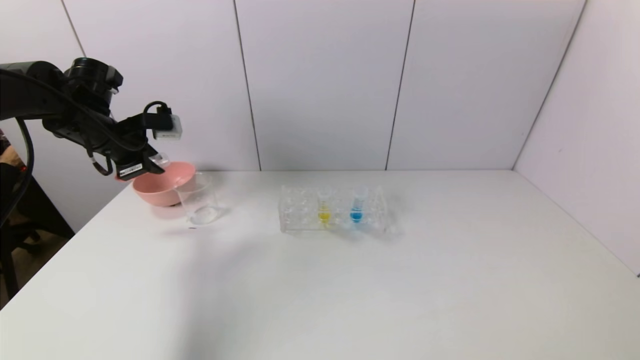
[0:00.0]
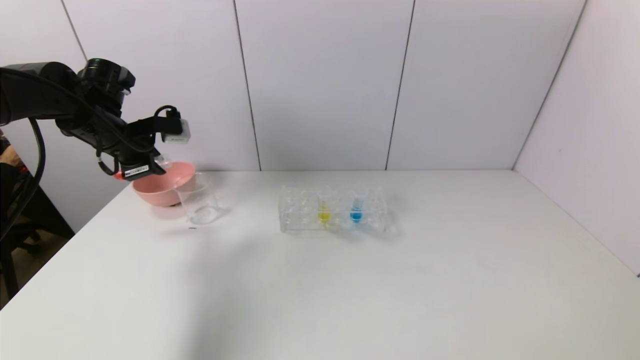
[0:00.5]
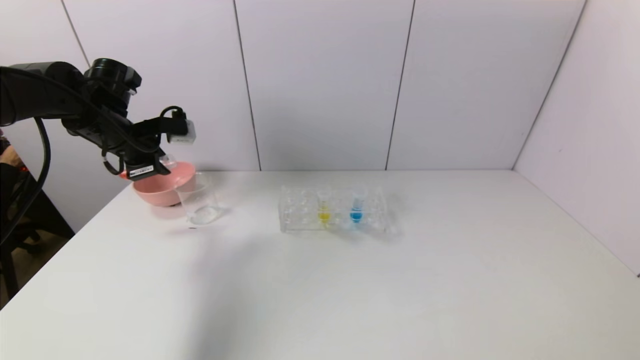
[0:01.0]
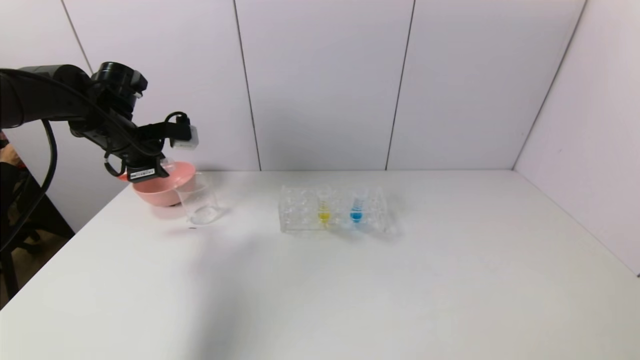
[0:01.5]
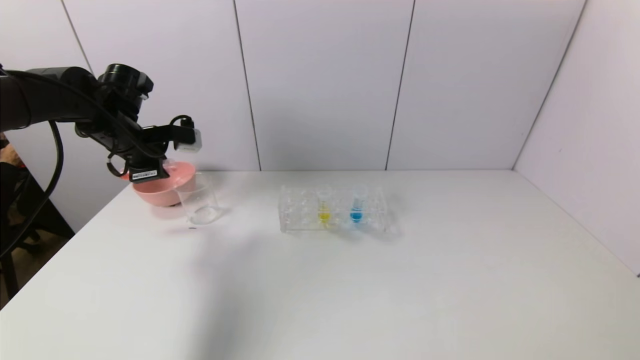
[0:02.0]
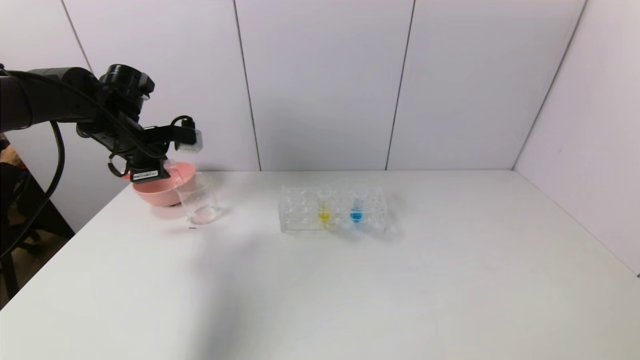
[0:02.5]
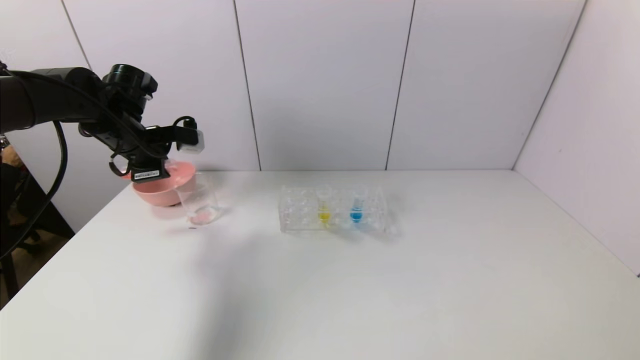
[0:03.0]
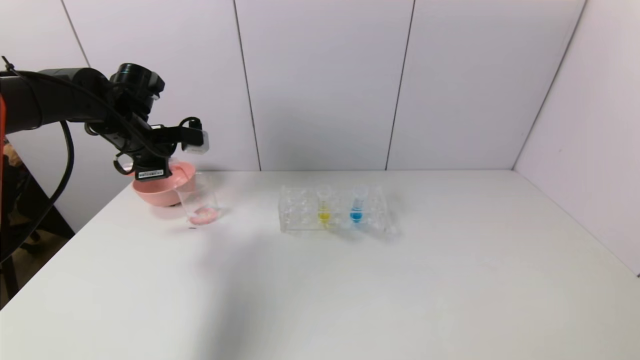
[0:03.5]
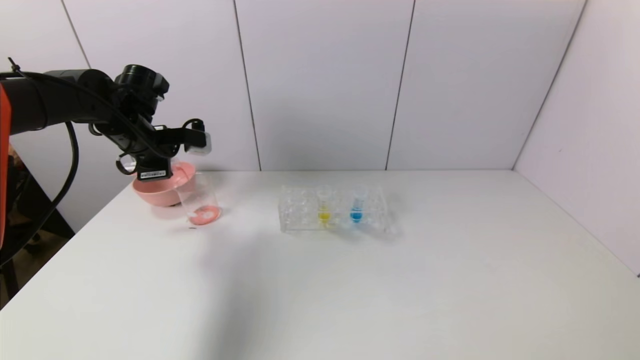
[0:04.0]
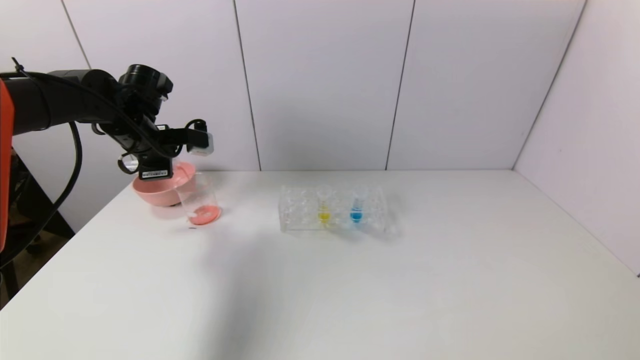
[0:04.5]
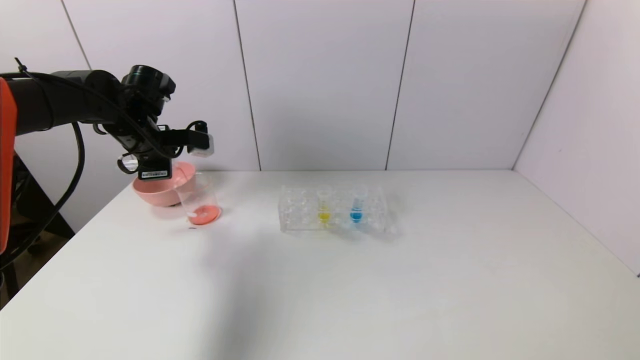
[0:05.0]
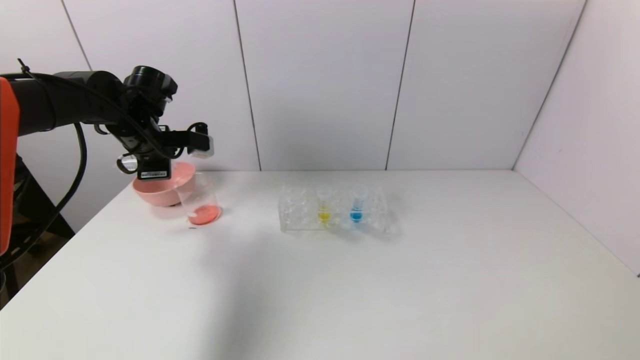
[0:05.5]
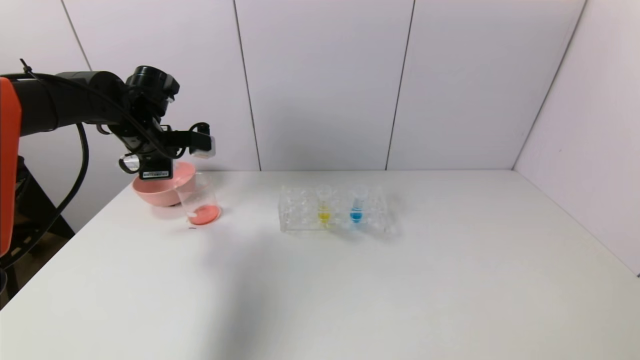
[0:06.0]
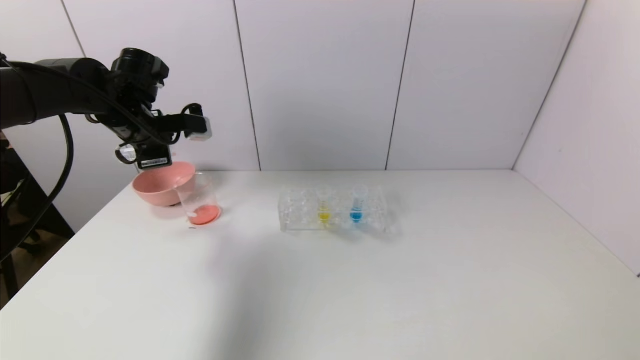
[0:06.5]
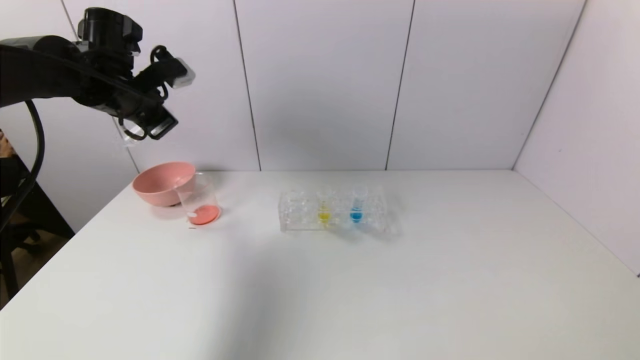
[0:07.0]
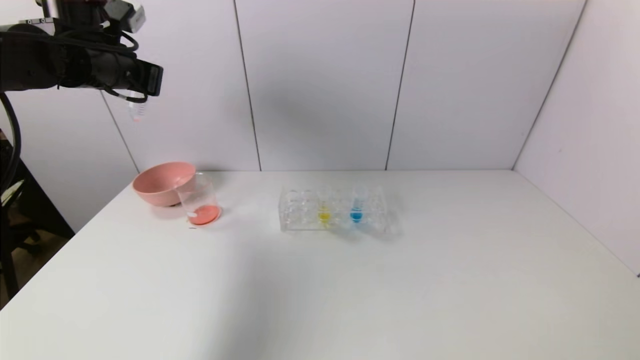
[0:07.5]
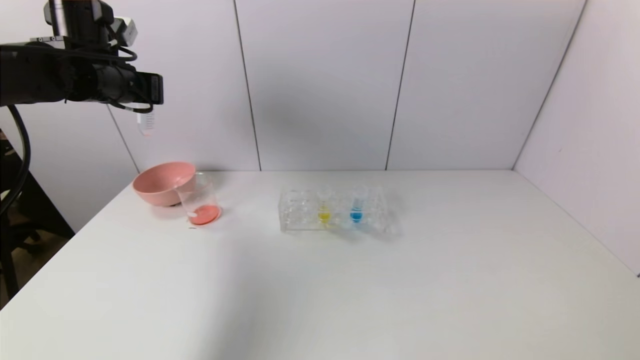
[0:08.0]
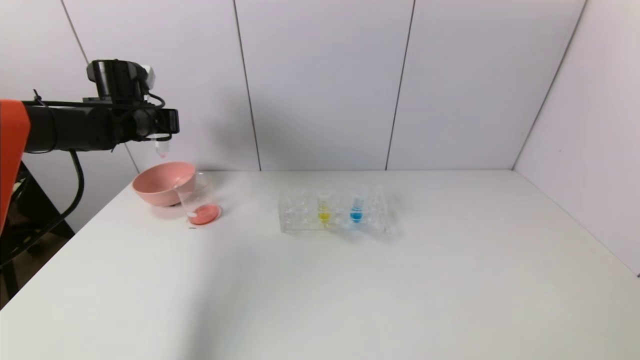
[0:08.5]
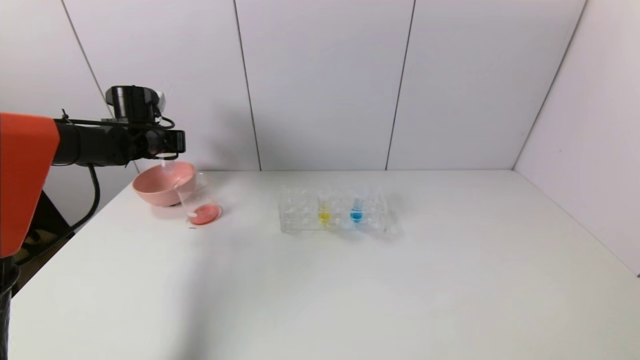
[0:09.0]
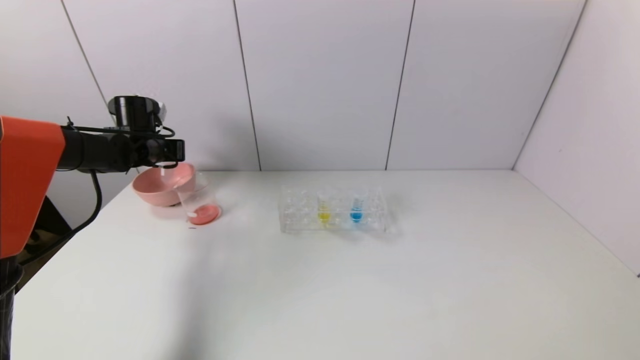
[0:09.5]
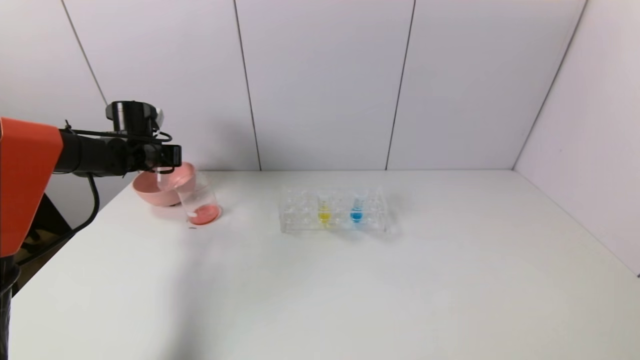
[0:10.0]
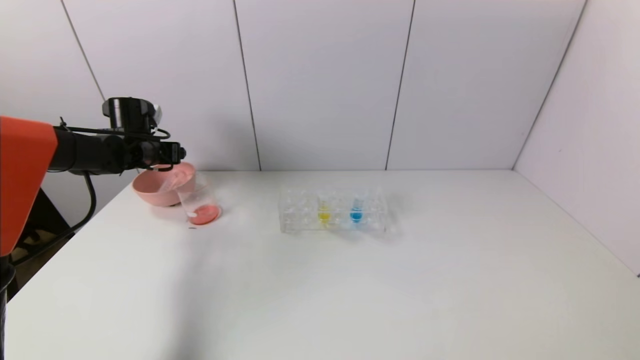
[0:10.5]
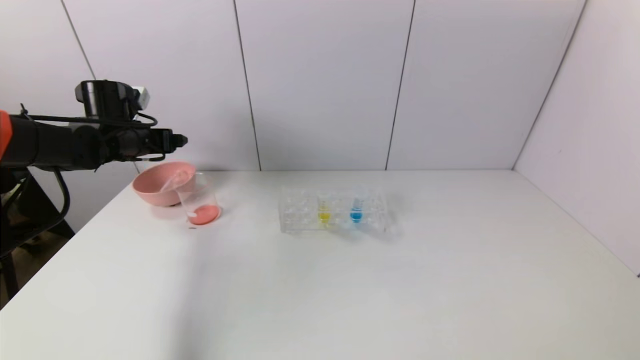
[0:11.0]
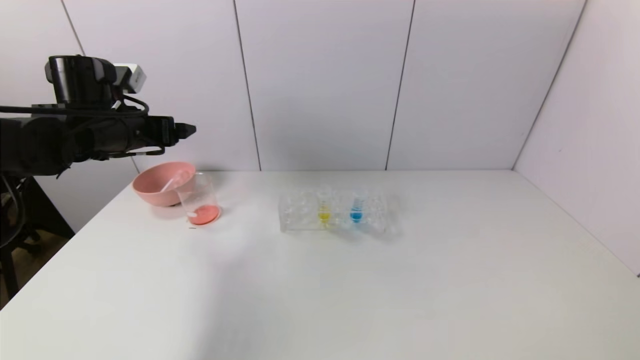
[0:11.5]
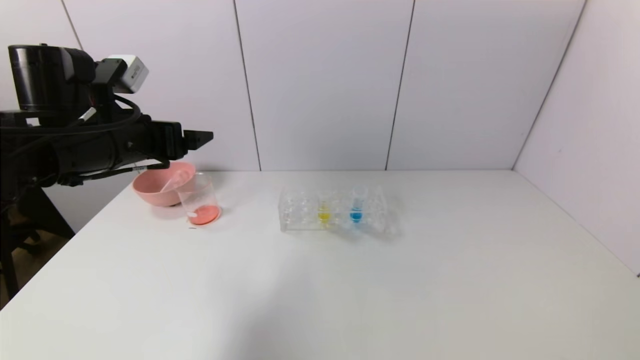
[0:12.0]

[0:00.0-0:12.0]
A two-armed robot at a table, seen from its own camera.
Task of the whole recording: pick up the test tube with red pigment and the test tube with blue pigment by grippers and pour them into the container.
Step, 0:00.0 to 0:07.0: Pour the red reagent into the graduated cylinder with the left gripper.
Step, 0:07.5 to 0:10.5: Place the test tube into the bowl with the left gripper.
0:00.0 to 0:04.0: The grippers stay close to where they were, moving slightly.
0:04.0 to 0:06.0: The grippers stay close to where they were, moving slightly.
0:06.0 to 0:08.0: The left gripper shifts some 10 cm upward.
0:08.0 to 0:10.0: The left gripper moves downward and forward, roughly 15 cm.
0:10.0 to 0:12.0: The left gripper goes about 25 cm backward, upward and to the right, and opens.

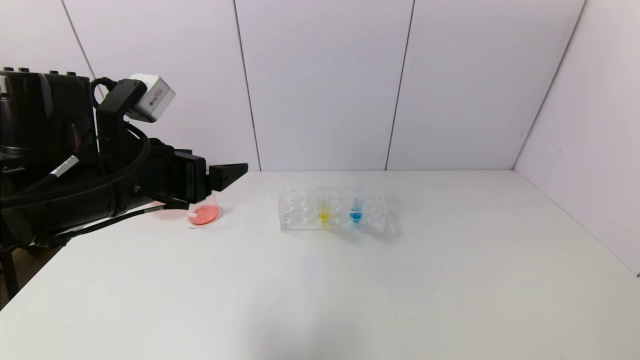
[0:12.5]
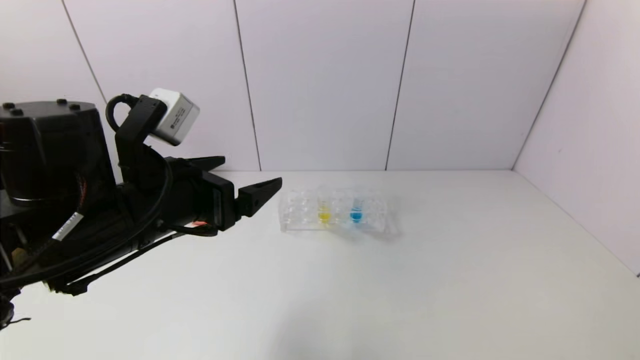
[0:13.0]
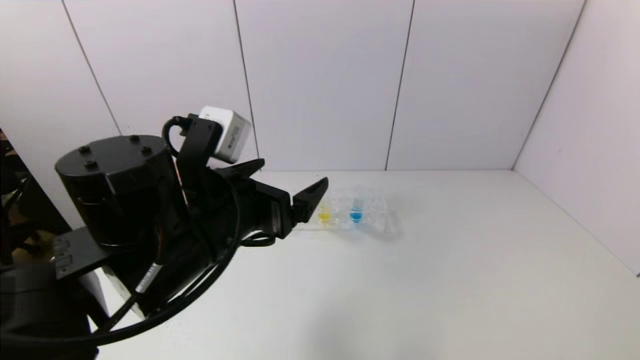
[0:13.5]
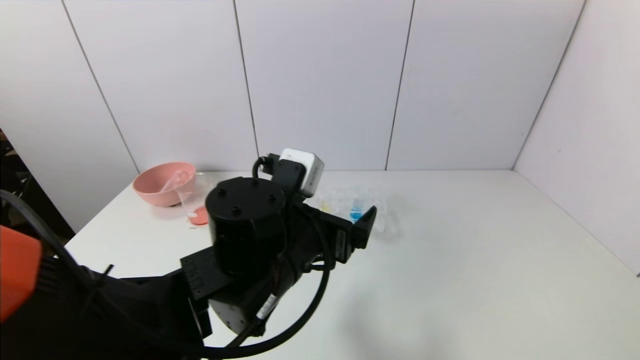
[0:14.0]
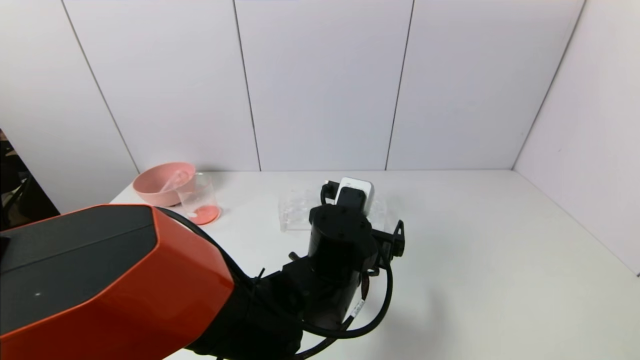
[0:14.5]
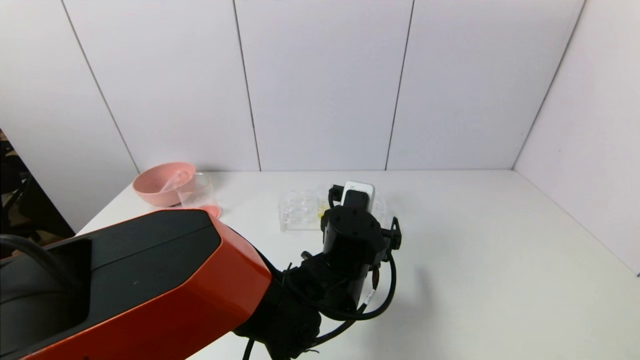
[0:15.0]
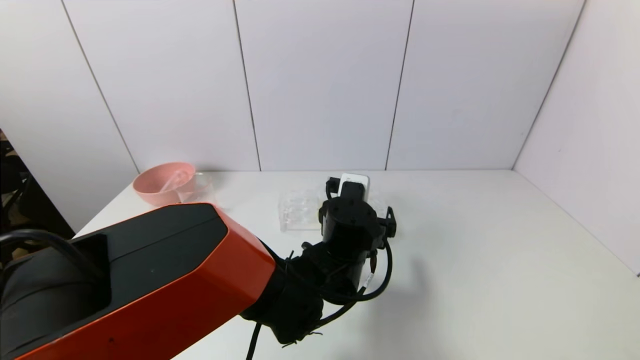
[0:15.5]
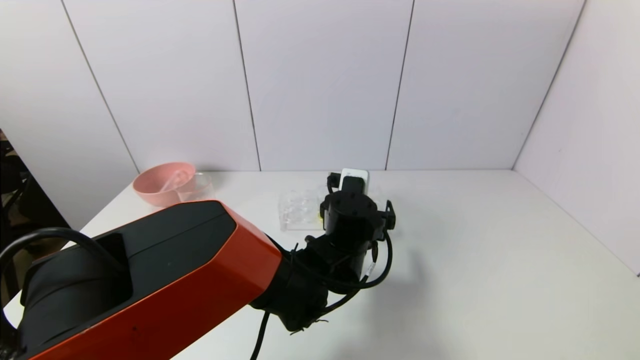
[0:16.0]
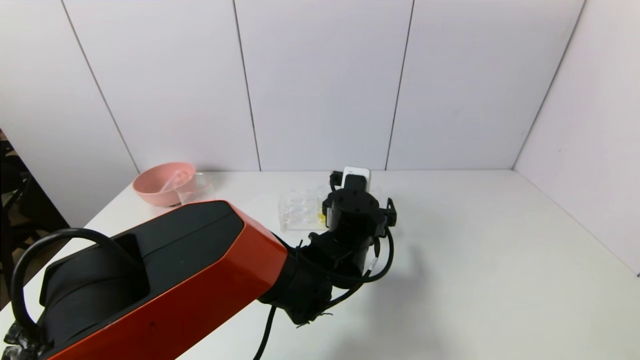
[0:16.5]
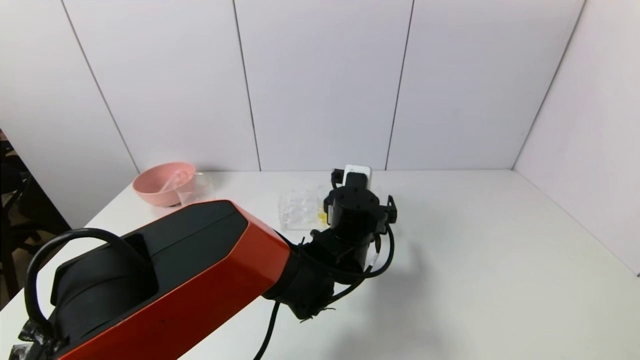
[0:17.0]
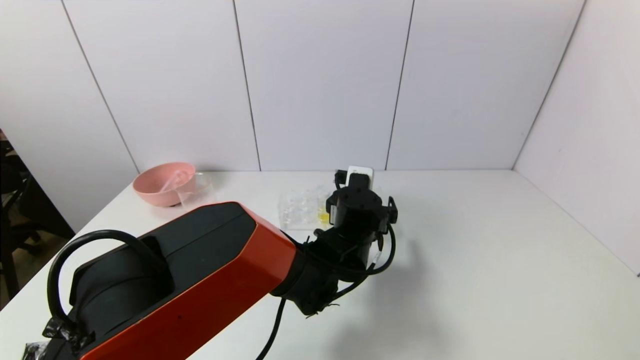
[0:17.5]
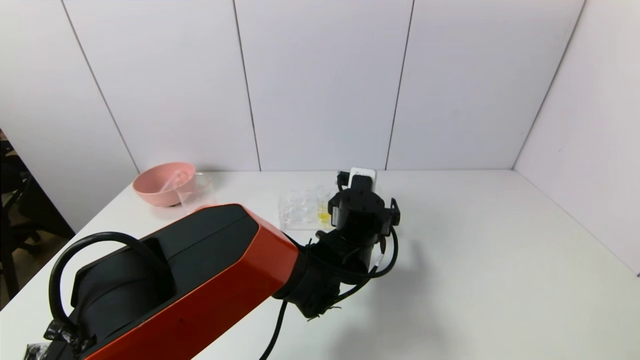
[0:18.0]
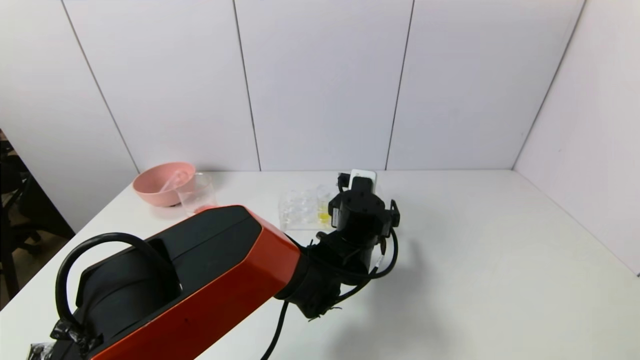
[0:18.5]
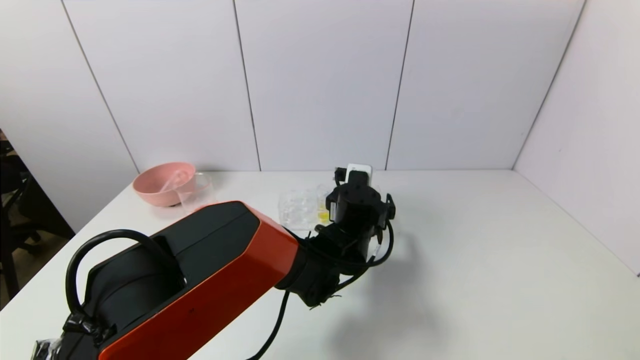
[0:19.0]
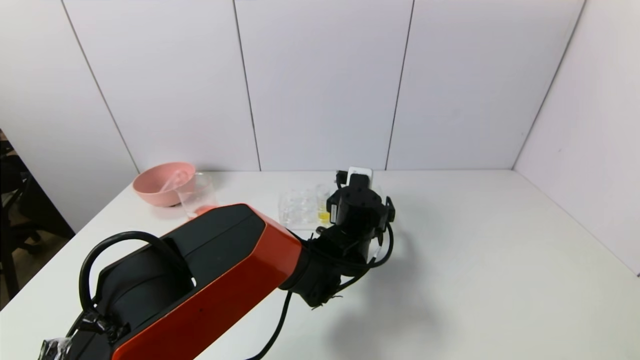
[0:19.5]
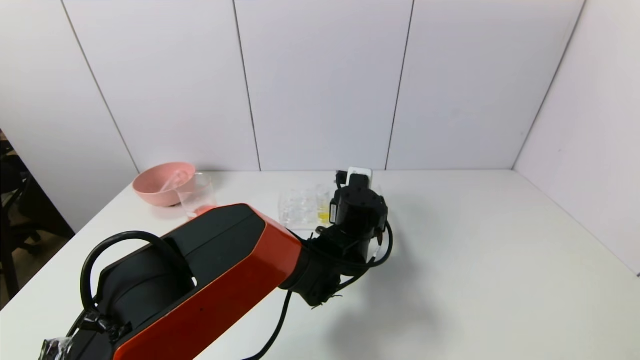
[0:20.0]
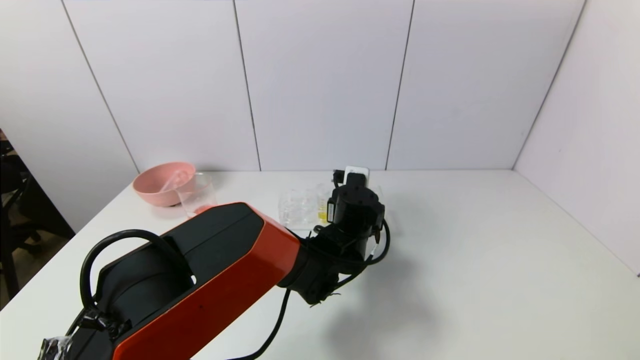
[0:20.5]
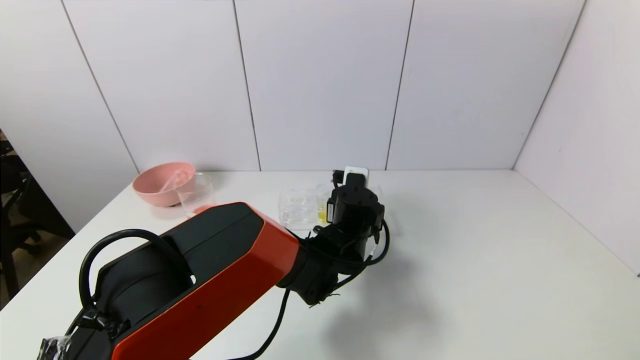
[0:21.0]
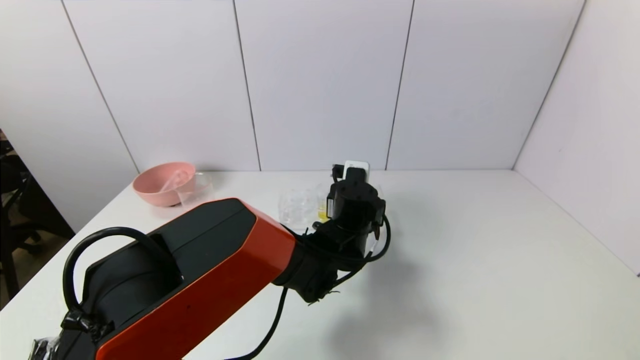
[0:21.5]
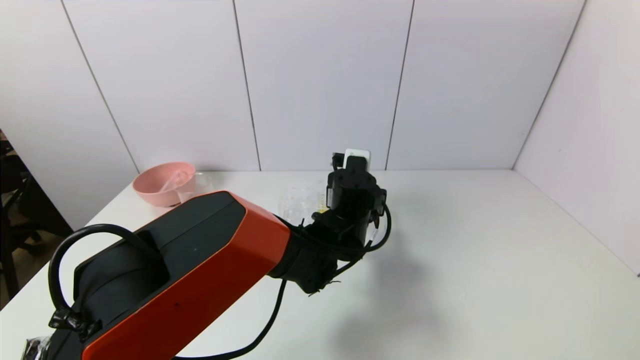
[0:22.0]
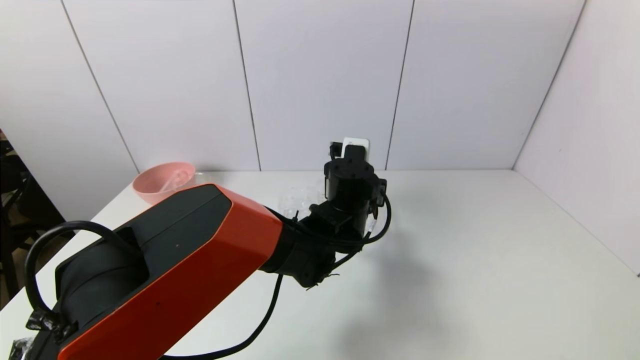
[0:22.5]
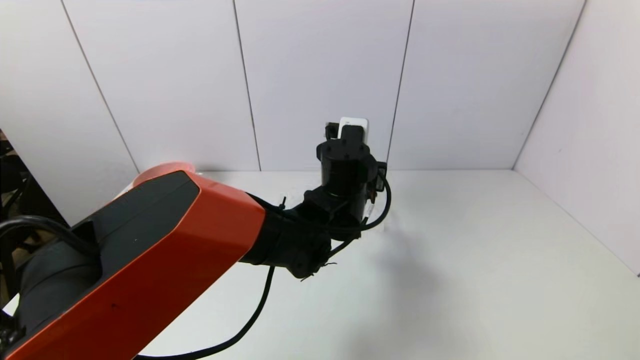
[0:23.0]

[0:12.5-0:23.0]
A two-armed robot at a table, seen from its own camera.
Task of the whole recording: pick up the test tube with red pigment and the test tube with blue pigment by grippers and pour them into the container.
Step, 0:12.5 to 0:21.0: Grasp the blue reagent with the left gripper.
0:12.5 to 0:14.5: The left gripper goes some 25 cm to the right and downward.
0:14.5 to 0:16.5: The left gripper shifts some 5 cm forward.
0:16.5 to 0:19.0: The grippers move only a little.
0:19.0 to 0:21.0: The left gripper closes.
0:21.0 to 0:23.0: The left gripper goes approximately 10 cm upward.
